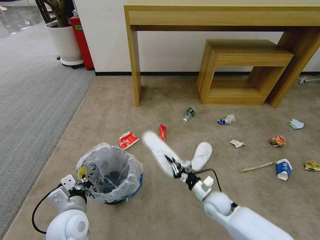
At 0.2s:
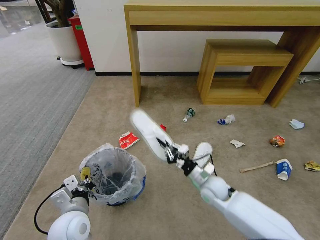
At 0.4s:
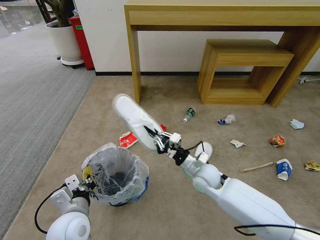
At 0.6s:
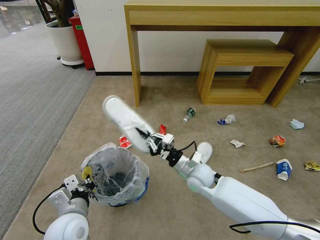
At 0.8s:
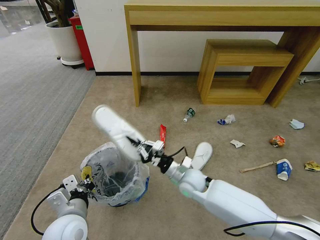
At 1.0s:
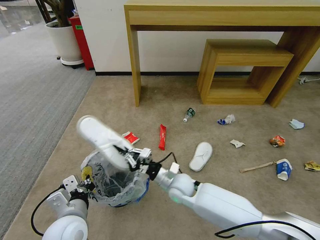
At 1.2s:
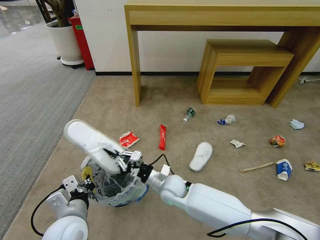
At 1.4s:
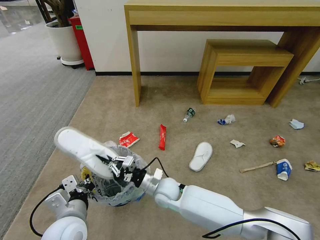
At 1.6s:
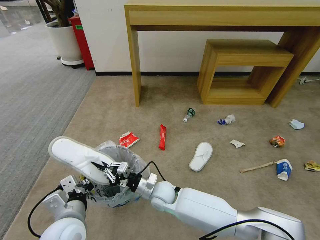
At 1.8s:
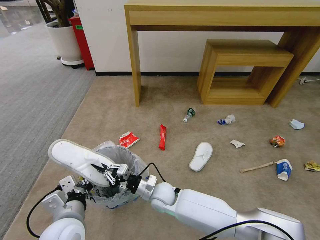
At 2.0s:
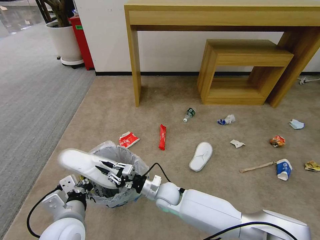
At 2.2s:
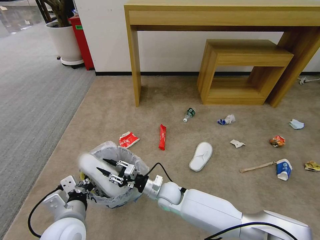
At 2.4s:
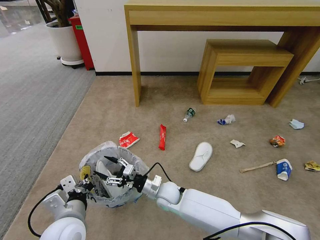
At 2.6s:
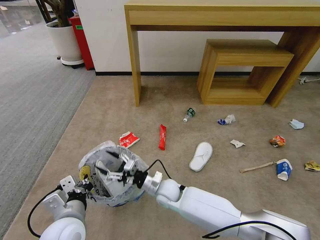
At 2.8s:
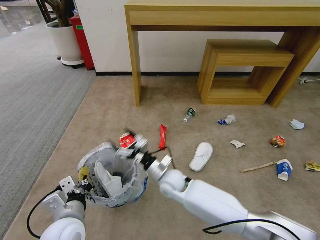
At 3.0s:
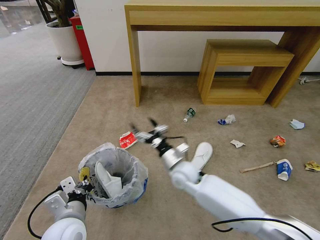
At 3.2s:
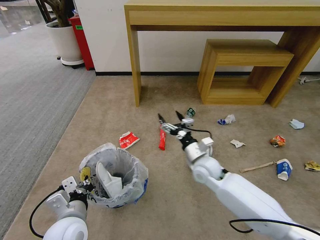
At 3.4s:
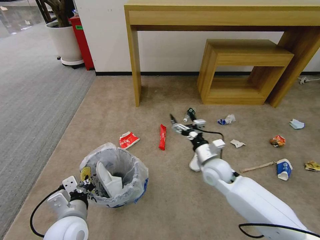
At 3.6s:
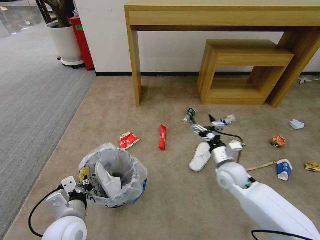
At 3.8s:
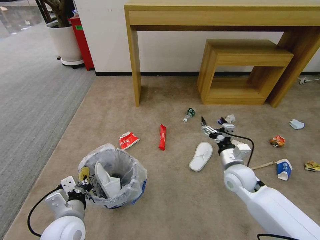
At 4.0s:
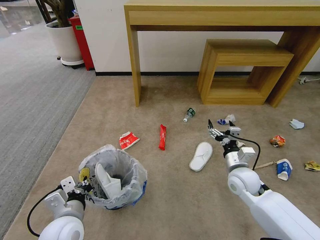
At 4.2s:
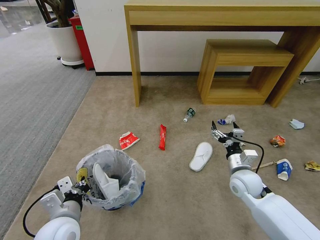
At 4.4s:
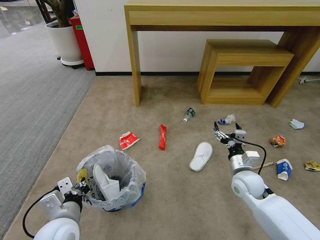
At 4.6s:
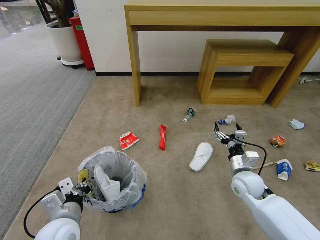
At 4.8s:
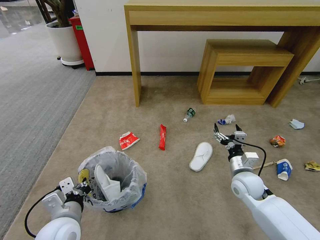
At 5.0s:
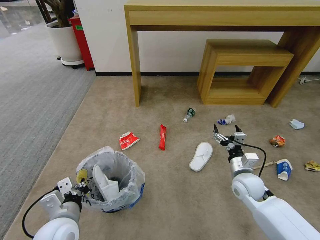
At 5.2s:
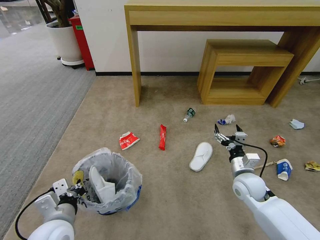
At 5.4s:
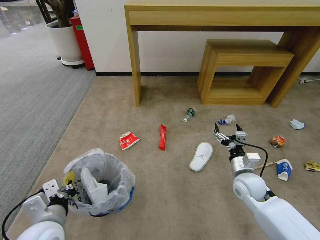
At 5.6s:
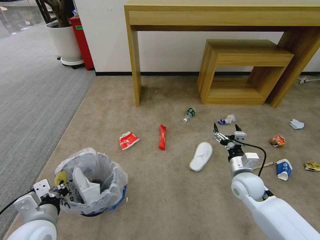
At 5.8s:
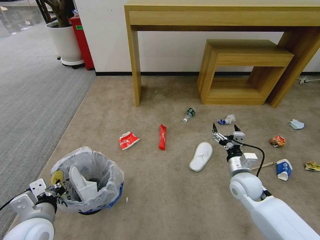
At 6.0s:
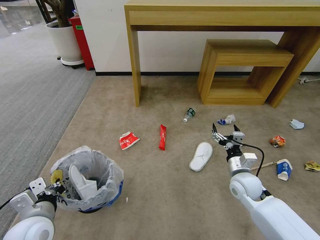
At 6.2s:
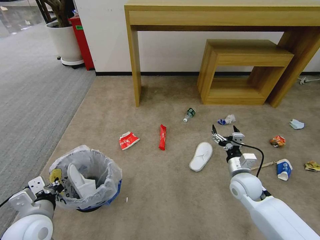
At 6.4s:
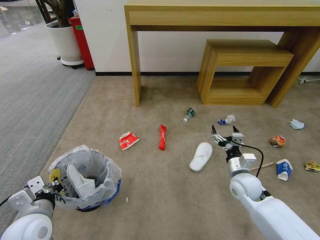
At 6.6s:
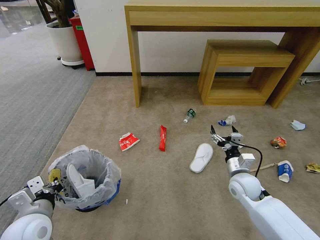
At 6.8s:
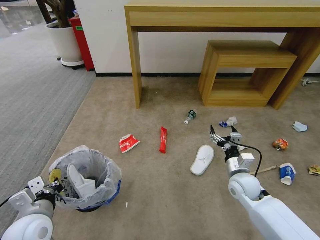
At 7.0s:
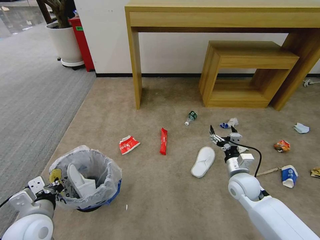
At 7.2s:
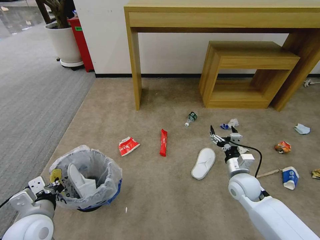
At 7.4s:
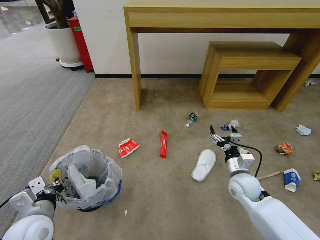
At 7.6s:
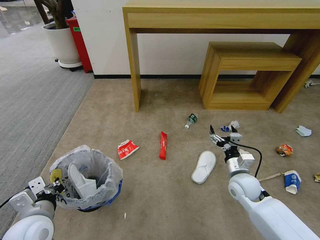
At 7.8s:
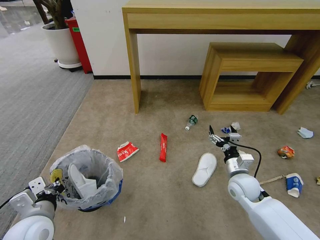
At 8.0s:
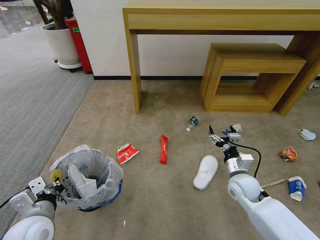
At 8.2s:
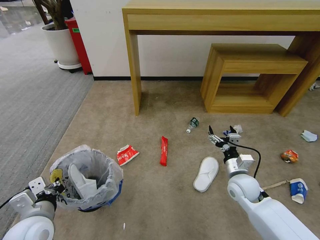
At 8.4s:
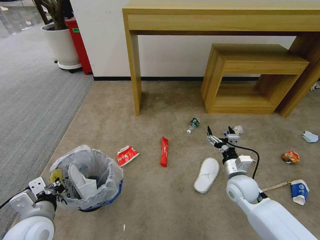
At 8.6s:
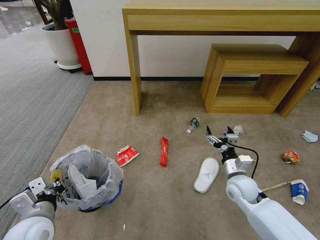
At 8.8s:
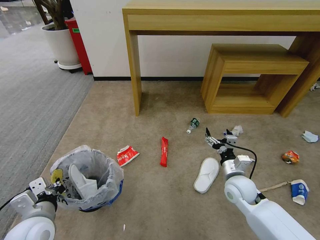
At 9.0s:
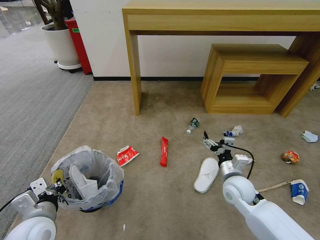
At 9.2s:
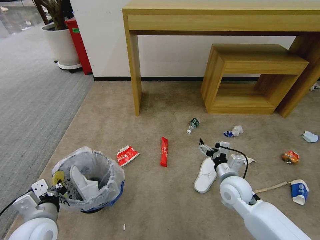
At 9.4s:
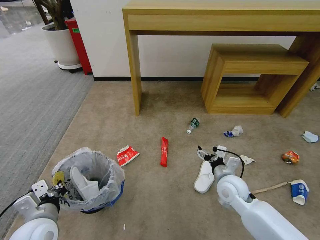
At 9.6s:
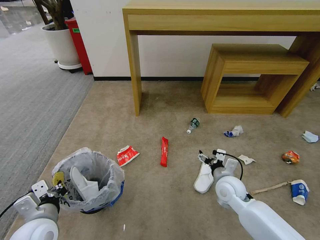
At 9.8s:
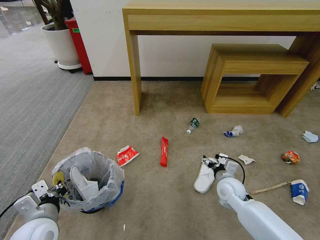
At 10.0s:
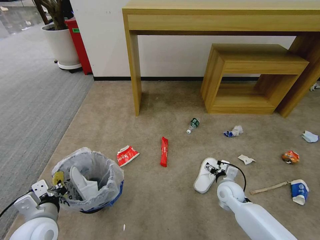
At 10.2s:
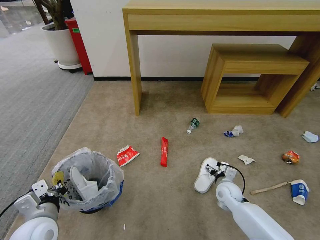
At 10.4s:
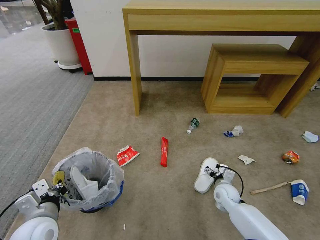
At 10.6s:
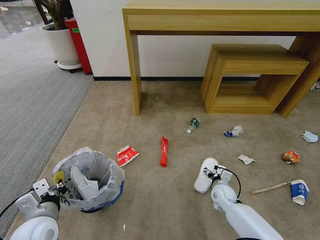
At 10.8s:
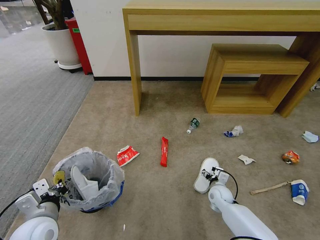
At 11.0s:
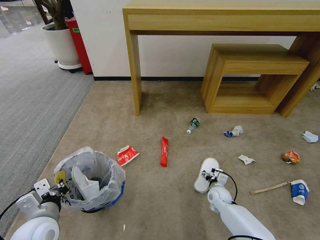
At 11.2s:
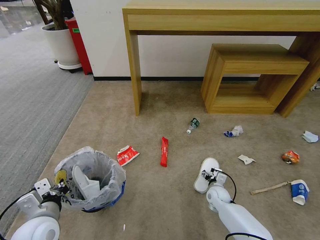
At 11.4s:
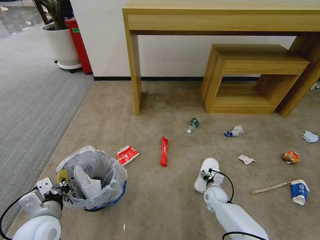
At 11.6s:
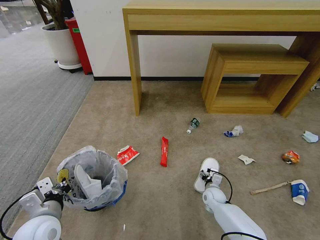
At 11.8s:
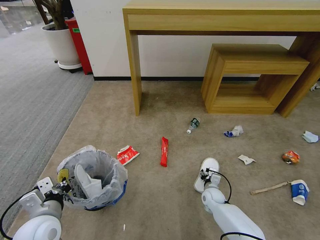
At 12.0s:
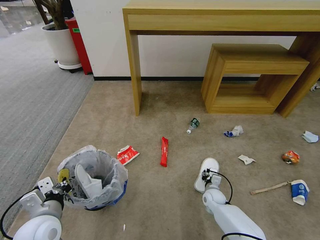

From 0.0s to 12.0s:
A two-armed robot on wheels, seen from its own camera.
Task of the whole recording: Pick up the trash bin and place the garbage on the floor into it.
From 0.0s to 1.6s: The right gripper is displaced to the left by roughly 20 cm.
From 1.6s to 3.0s: The right gripper moves to the right, upward and forward, some 15 cm, and opens its fingers.
From 3.0s to 4.4s: The right gripper heads to the right, covering roughly 20 cm.
From 4.4s to 6.0s: The left gripper is displaced to the left by some 5 cm.
From 6.0s to 7.6s: Neither gripper changes place.
From 7.6s to 9.0s: There are only small adjustments of the grippers.
From 9.0s to 10.4s: The right gripper shifts roughly 15 cm downward.
From 10.4s to 12.0s: The right gripper travels downward by about 10 cm, and closes its fingers.

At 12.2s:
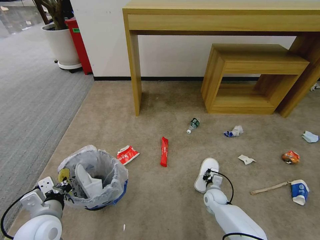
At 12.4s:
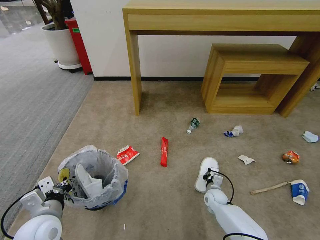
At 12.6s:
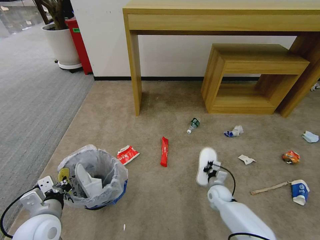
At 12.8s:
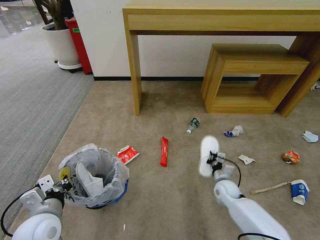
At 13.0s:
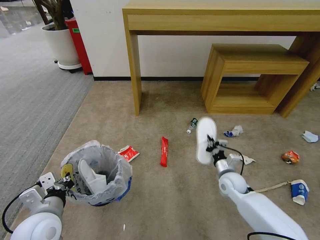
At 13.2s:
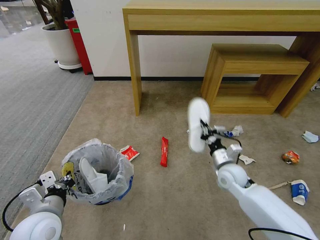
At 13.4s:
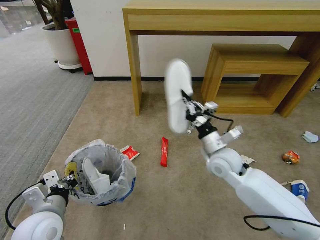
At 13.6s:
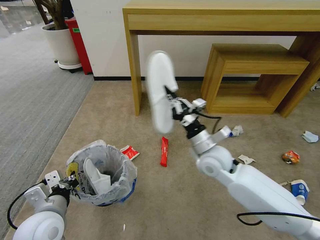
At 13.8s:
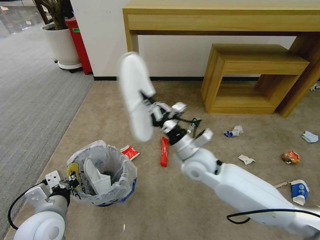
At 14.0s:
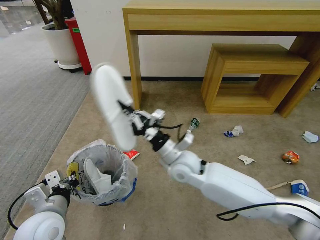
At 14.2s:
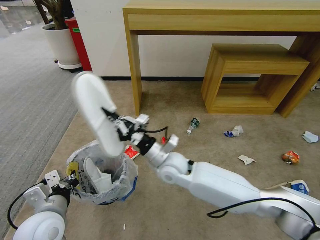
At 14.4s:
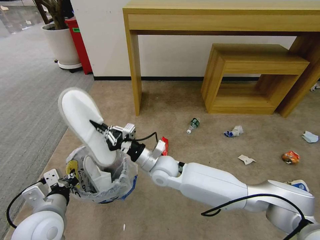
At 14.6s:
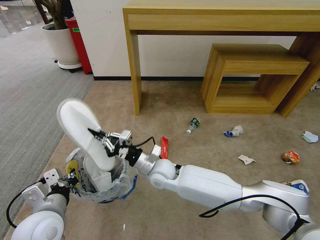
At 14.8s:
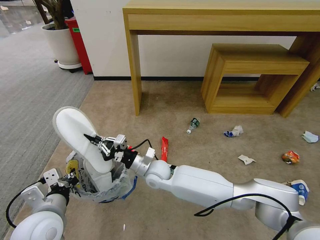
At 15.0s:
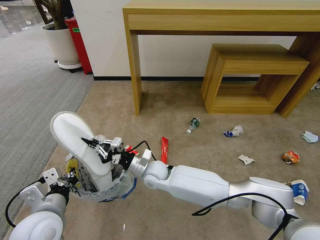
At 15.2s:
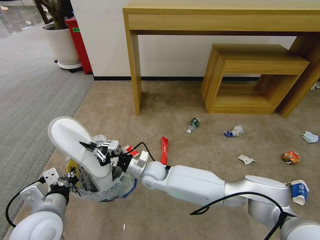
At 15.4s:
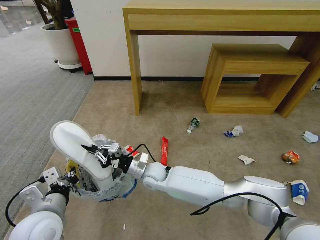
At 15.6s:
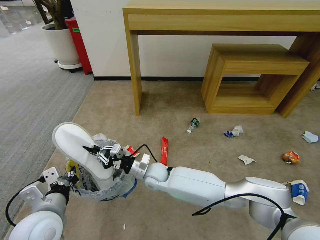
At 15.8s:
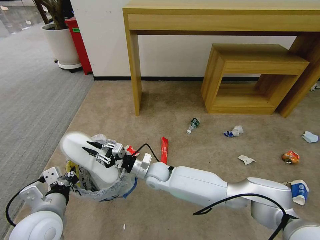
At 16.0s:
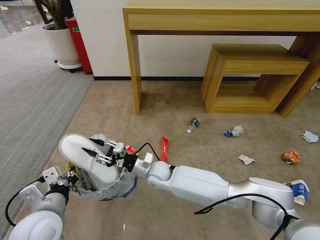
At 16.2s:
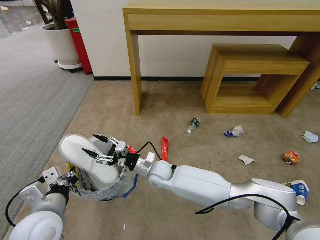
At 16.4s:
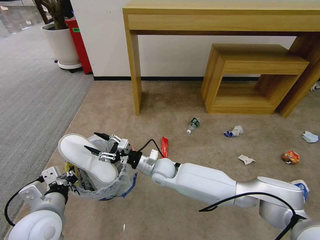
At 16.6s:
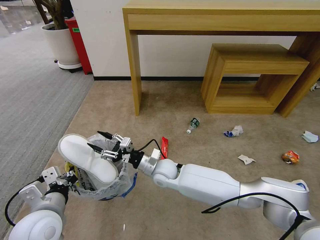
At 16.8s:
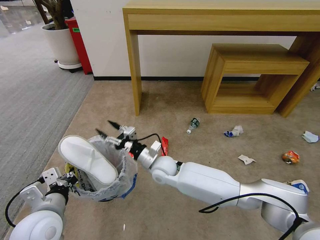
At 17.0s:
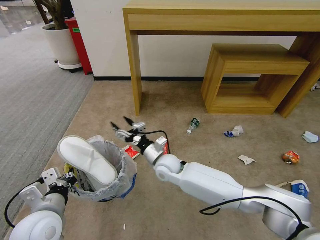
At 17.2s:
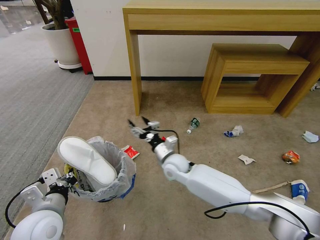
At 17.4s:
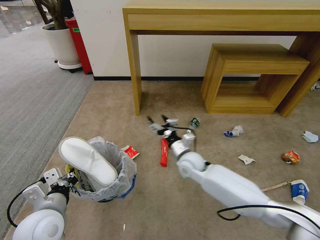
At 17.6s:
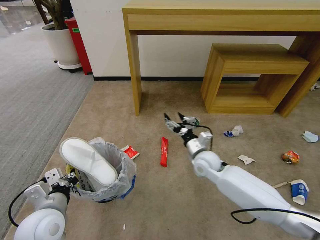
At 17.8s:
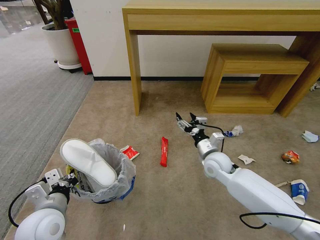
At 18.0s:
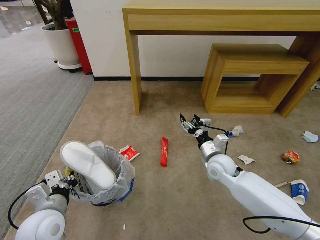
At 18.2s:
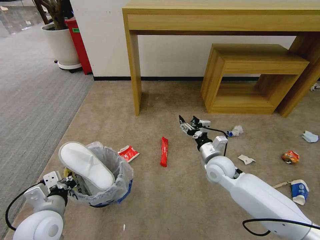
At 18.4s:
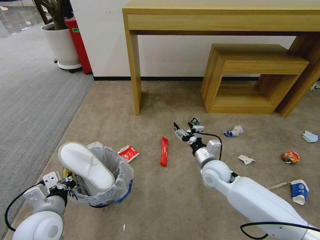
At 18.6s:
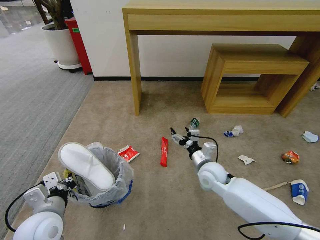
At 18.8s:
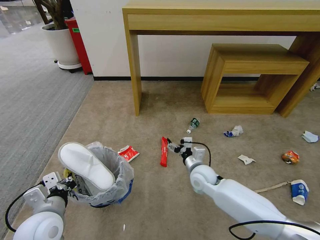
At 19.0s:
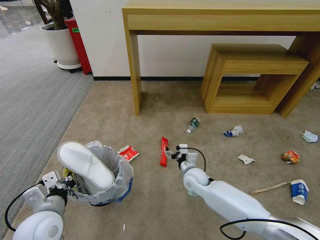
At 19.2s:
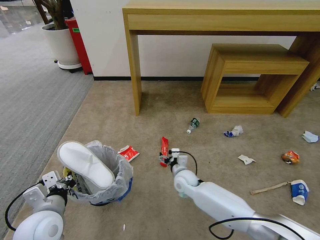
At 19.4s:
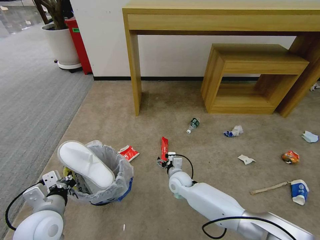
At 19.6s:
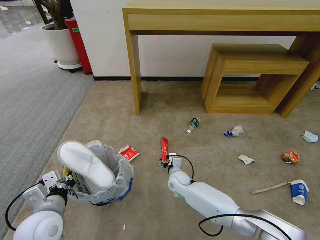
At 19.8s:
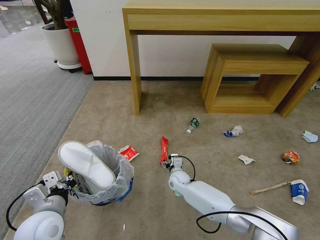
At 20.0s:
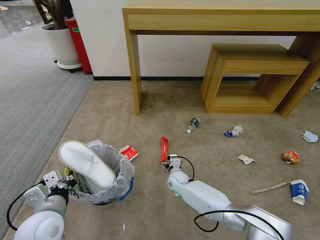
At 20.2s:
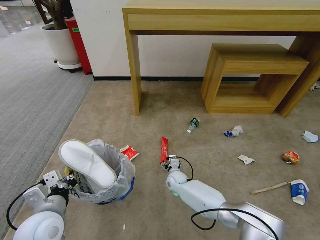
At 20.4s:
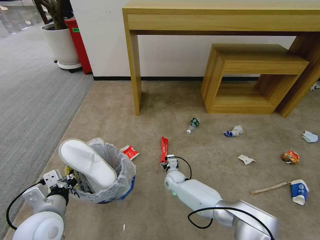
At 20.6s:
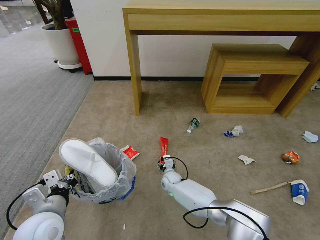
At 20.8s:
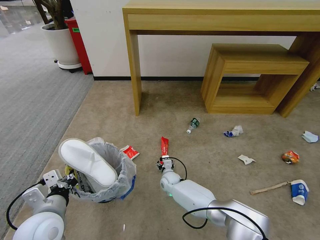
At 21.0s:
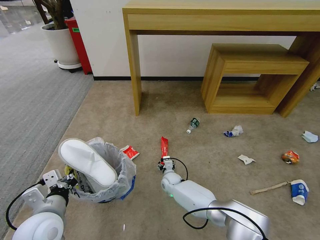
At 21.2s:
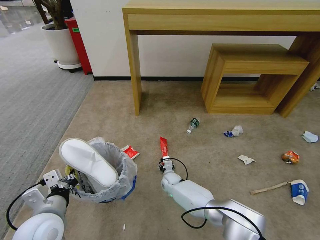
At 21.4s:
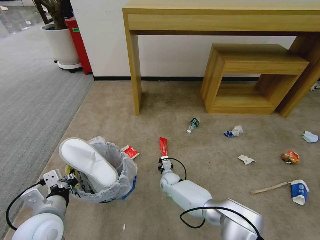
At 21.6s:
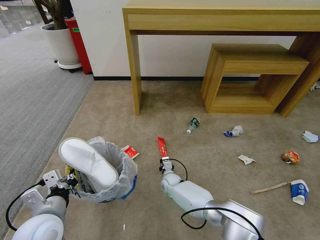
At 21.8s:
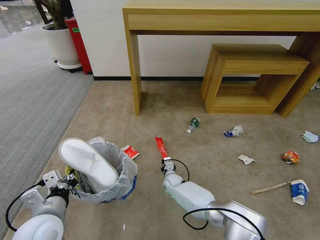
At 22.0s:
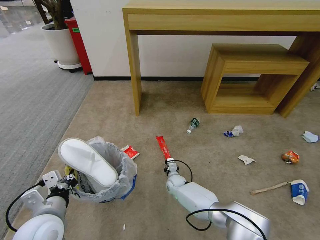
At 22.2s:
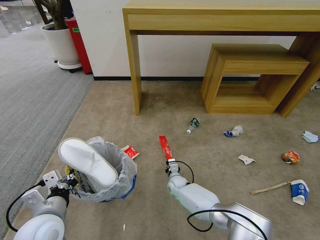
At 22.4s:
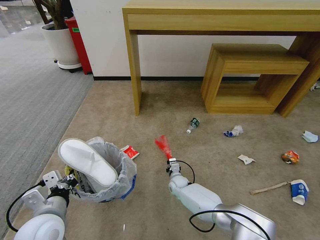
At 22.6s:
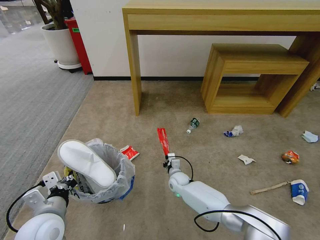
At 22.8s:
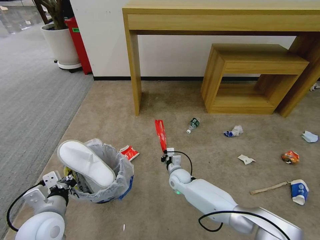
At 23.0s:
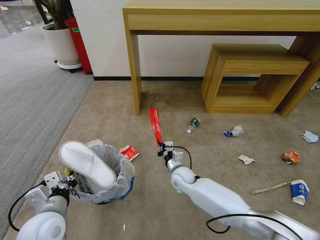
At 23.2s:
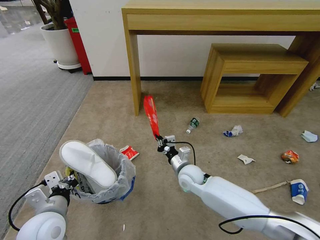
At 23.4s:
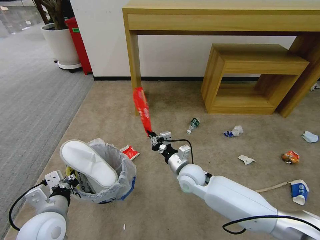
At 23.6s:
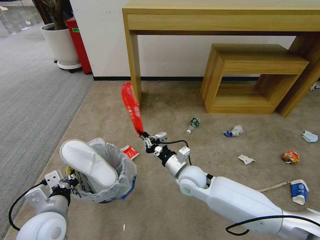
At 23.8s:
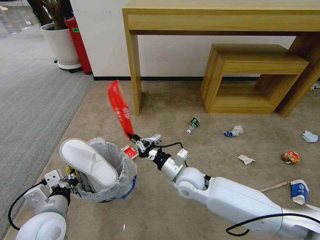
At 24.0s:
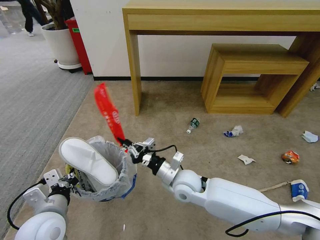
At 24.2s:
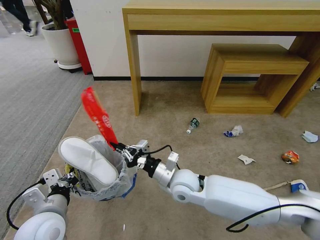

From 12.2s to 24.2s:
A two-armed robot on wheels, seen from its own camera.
Task of the whole recording: Pick up the trash bin and place the garbage on the floor into it.
From 12.2s to 13.8s: The right gripper goes roughly 35 cm upward and to the left.
From 13.8s to 15.2s: The right gripper travels to the left and downward by some 20 cm.
From 15.2s to 16.6s: The right gripper opens its fingers.
From 16.6s to 18.2s: The right gripper heads to the right, covering roughly 20 cm.
From 18.2s to 19.8s: The right gripper heads downward and to the left, covering roughly 20 cm.
From 19.8s to 21.2s: The right gripper moves some 5 cm.
From 21.2s to 22.6s: The right gripper closes up.
From 22.6s to 24.2s: The right gripper shifts approximately 25 cm upward and backward.
